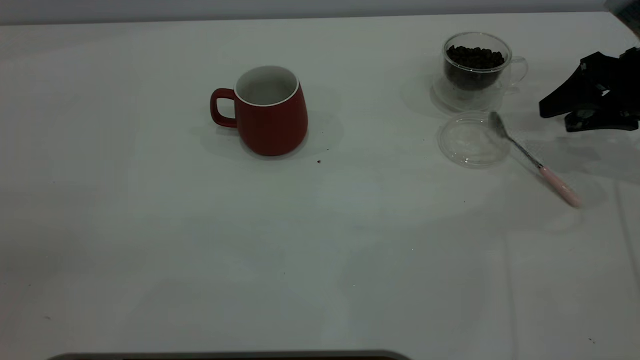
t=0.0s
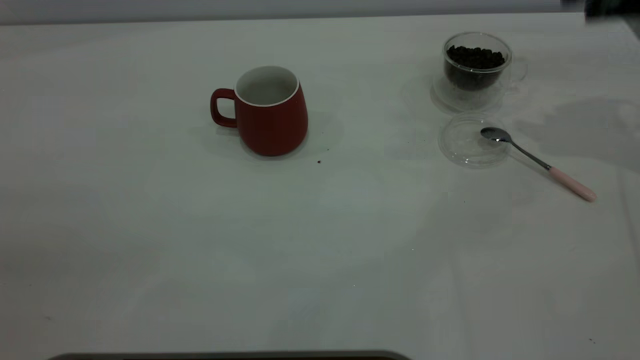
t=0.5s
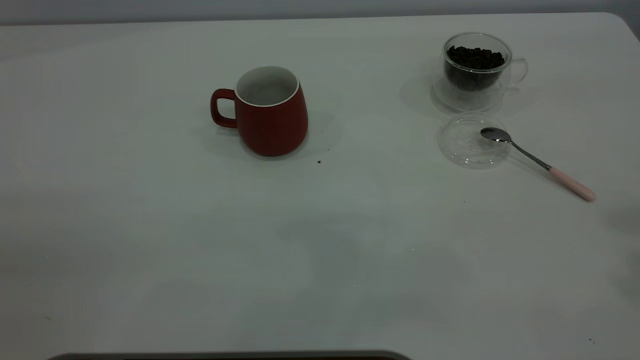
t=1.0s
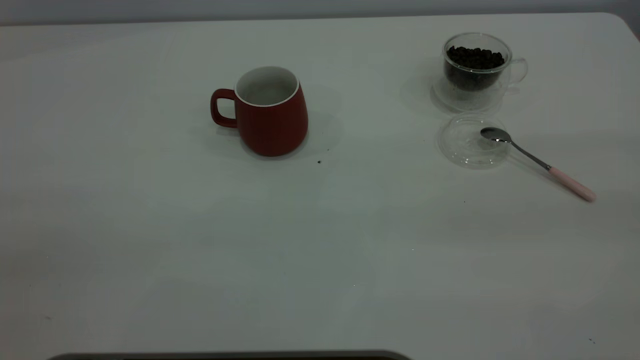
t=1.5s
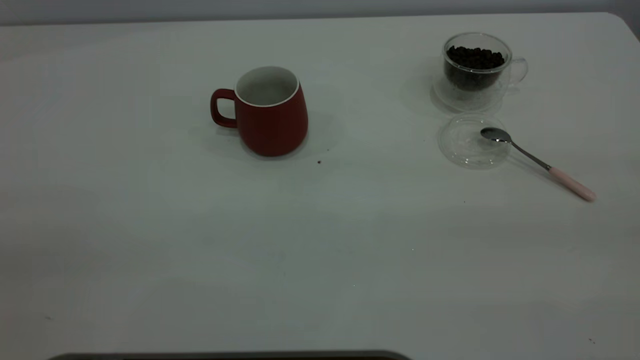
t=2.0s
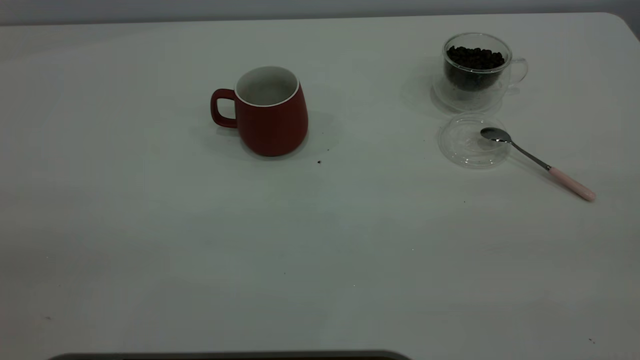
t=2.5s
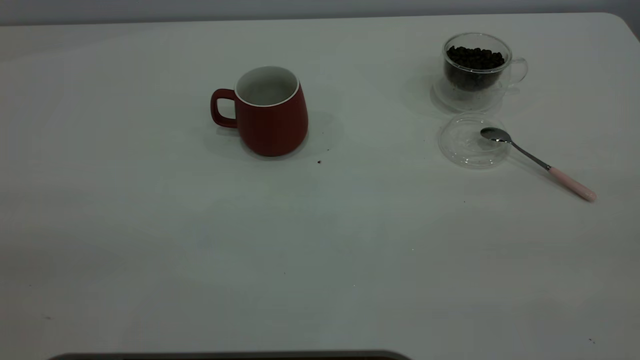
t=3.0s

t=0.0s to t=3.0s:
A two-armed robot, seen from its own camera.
Task of the whole recording: the left gripper place the red cup in the center of the table, the right gripper take the pink spoon from the cup lid and scoop out the coffee beans from the coffee cup and put them into the red cup, the right gripper put the spoon back into the cup lid.
t=0.0s to t=1.5s: The right gripper goes some 40 cm backward and upward.

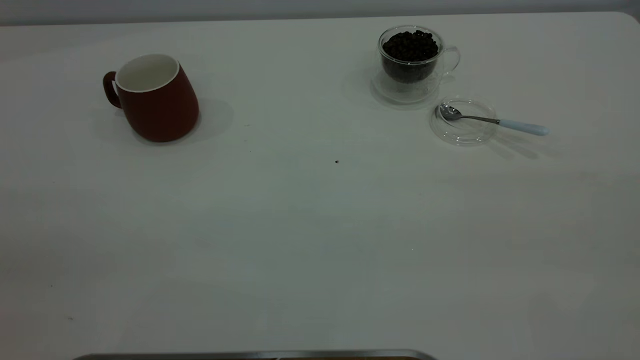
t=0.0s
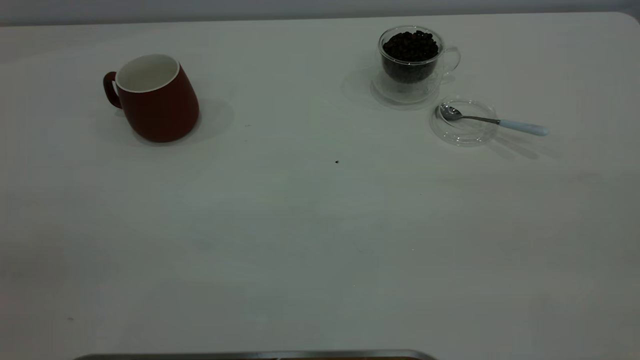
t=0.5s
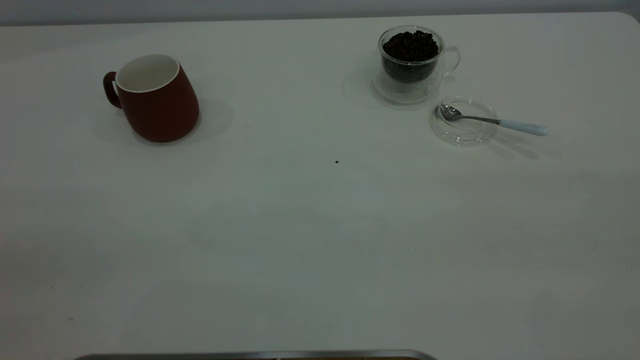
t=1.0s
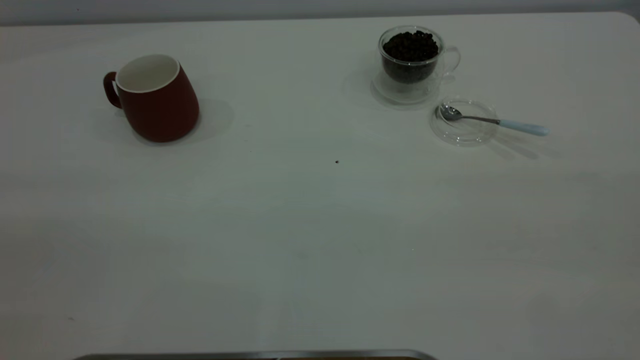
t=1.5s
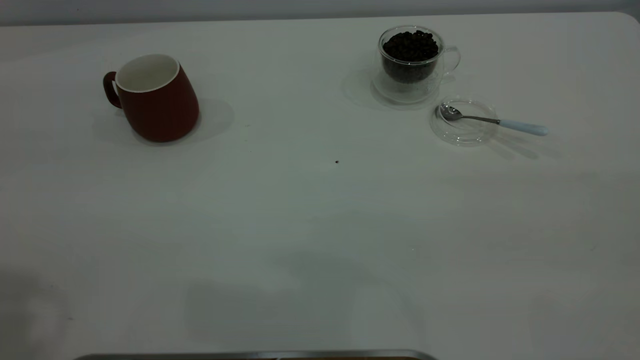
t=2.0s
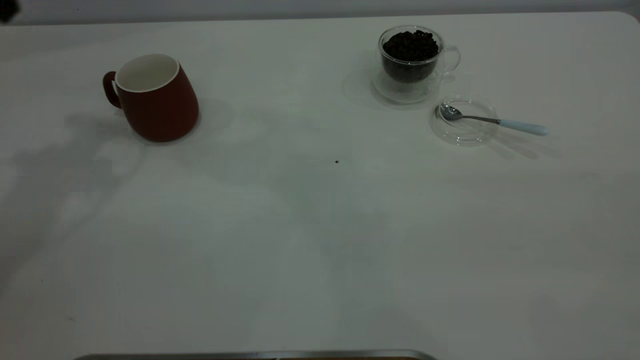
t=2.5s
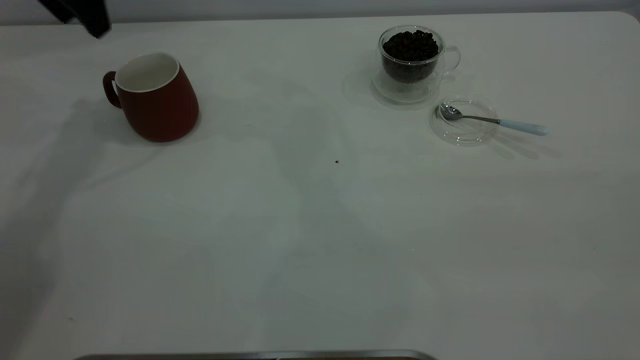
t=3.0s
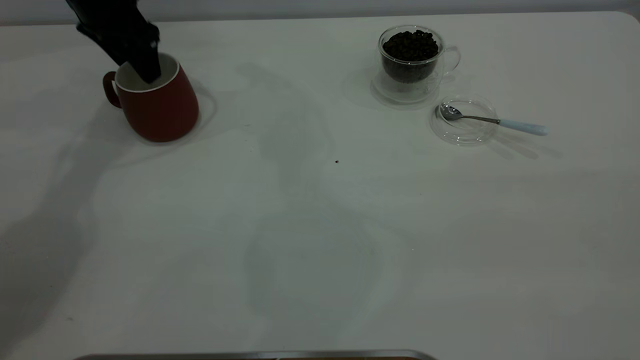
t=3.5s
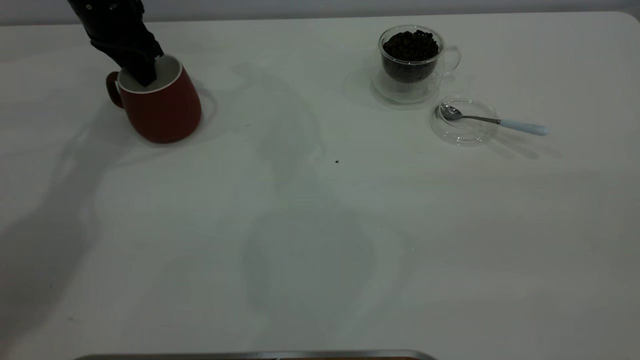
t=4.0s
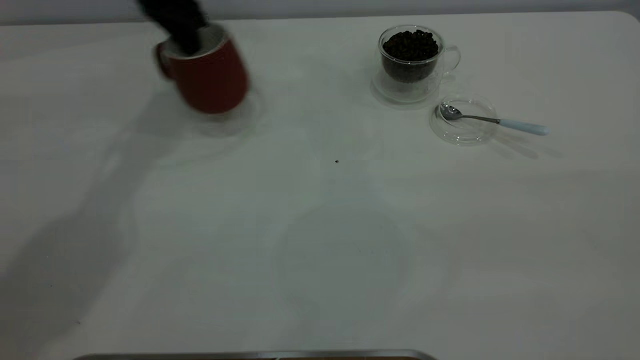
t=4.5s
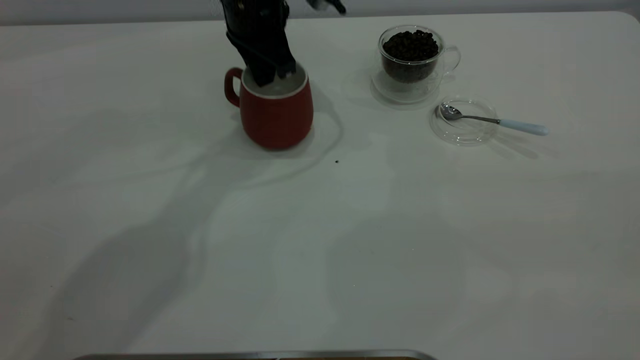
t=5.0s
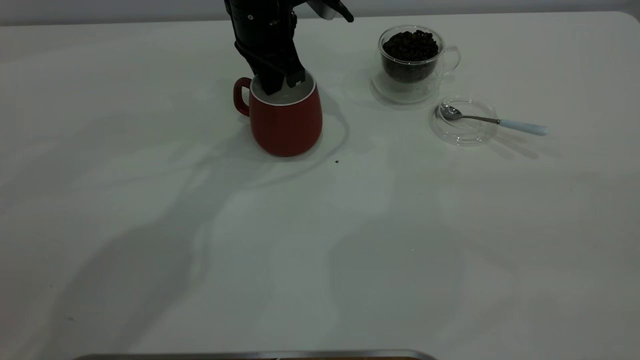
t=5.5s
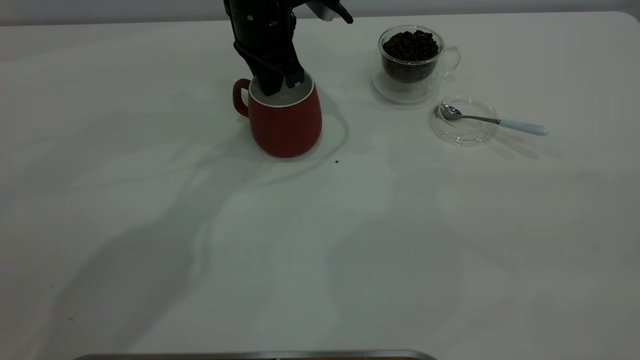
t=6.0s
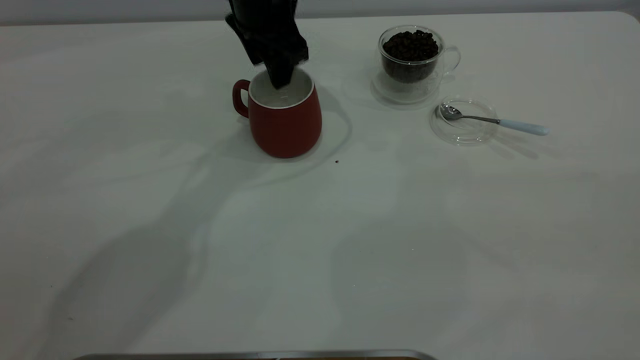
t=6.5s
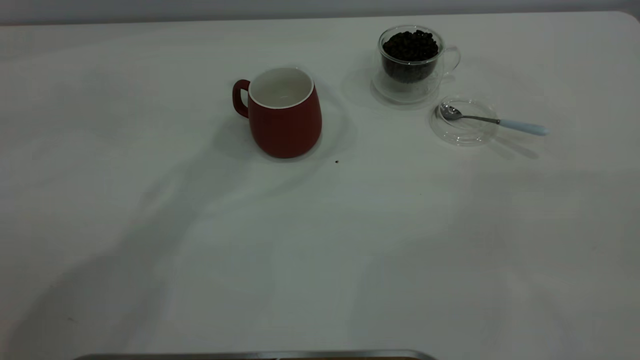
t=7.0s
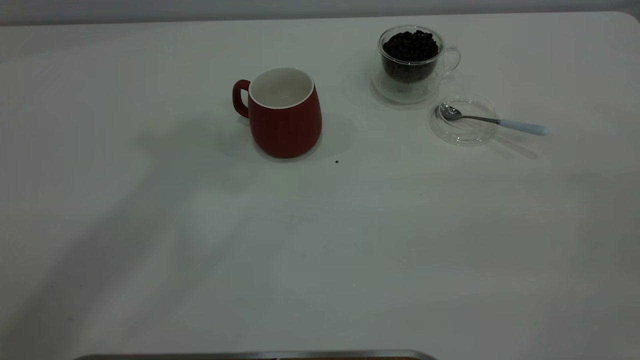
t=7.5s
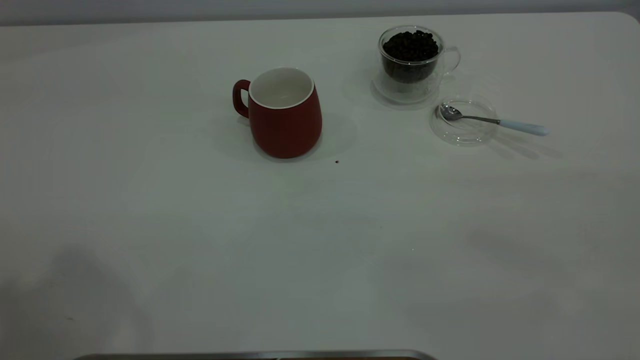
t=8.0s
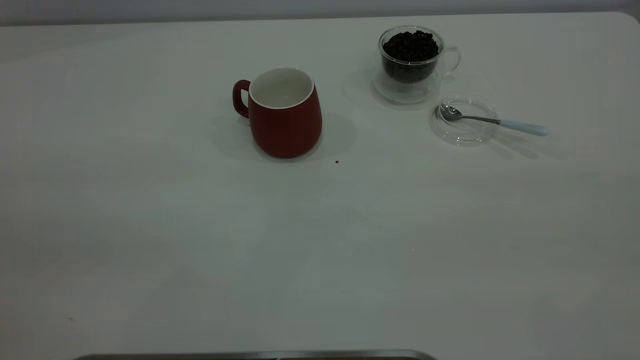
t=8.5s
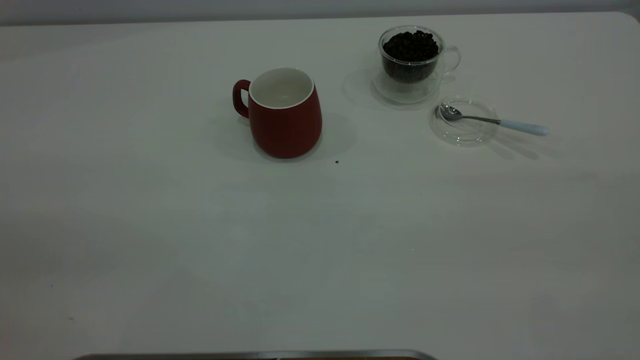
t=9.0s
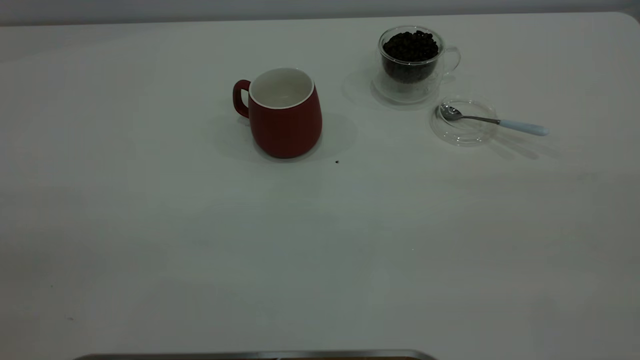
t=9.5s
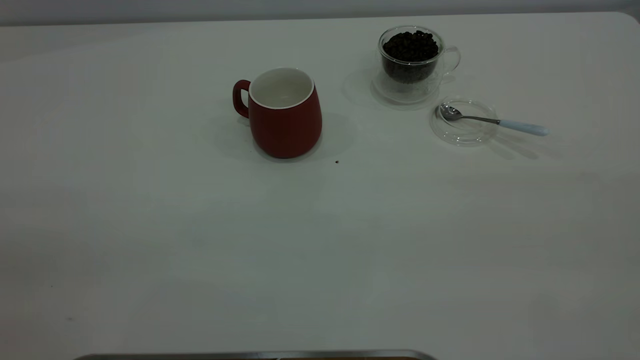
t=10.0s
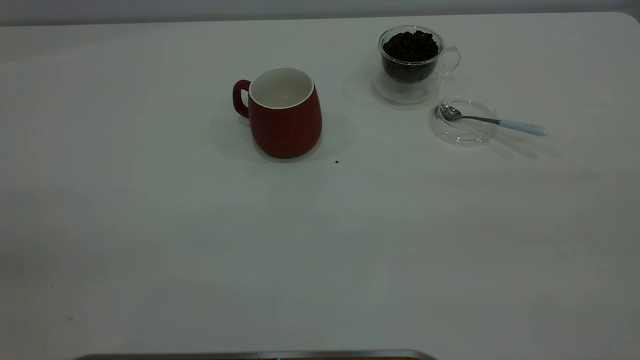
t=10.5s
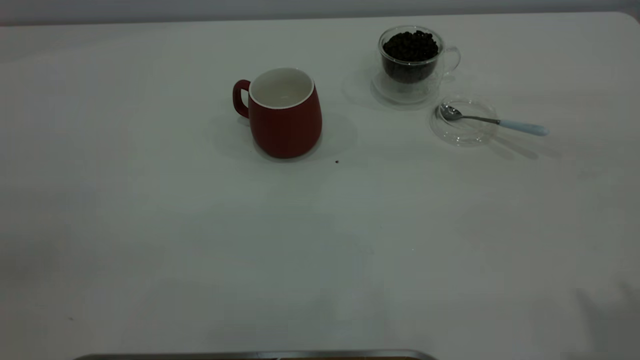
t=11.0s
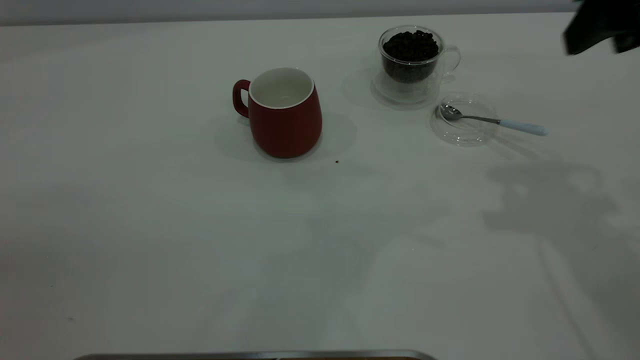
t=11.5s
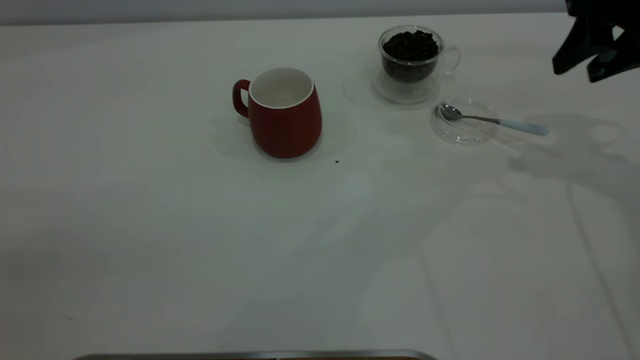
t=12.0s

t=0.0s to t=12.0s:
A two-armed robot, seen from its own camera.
Task of the whole recording: the left gripper place the red cup in the center of the table, the right gripper take the blue spoon from the cup lid and scoop out the coffee beans from the coffee cup and put them into the red cup, the right gripper put the spoon back into the cup lid.
Step, t=0.0s to t=6.5s: Move the cup to the center of view.
t=2.0s to t=4.0s: The left gripper moves forward and downward, roughly 40 cm, and closes up.
t=4.0s to t=6.0s: The left gripper travels to the right by approximately 20 cm.
t=6.0s to t=8.0s: The left gripper is displaced upward, backward and to the left by approximately 50 cm, and opens its fingers.
t=10.0s to t=12.0s: The right gripper is displaced forward and downward by some 40 cm, and opens its fingers.

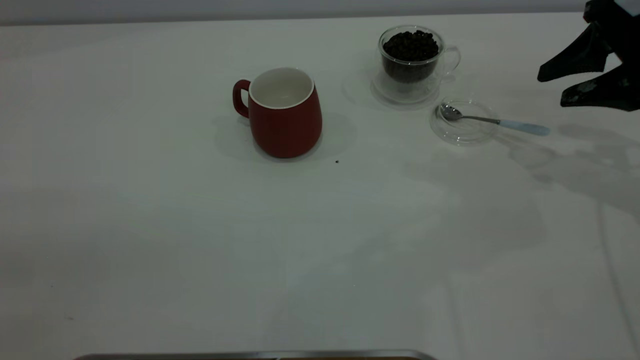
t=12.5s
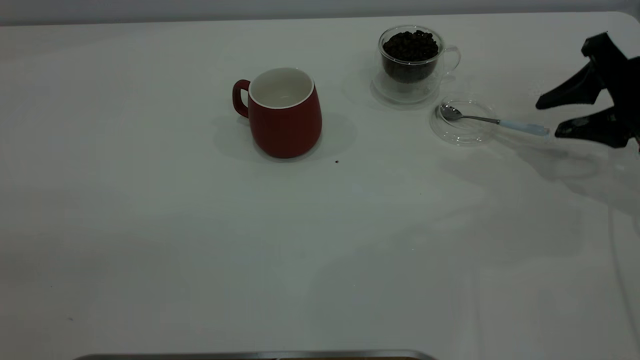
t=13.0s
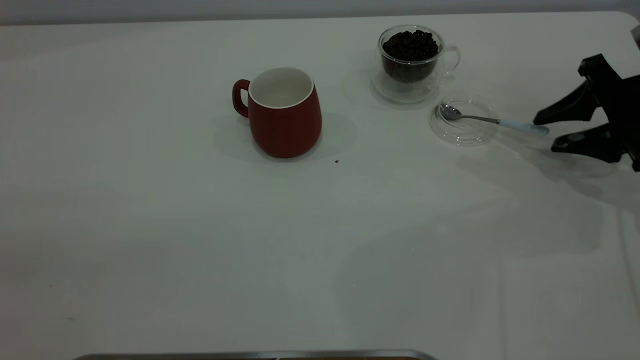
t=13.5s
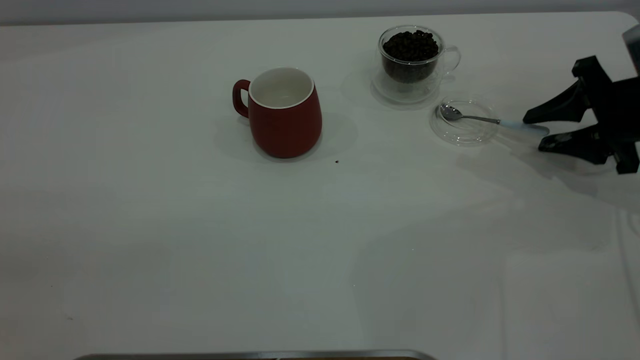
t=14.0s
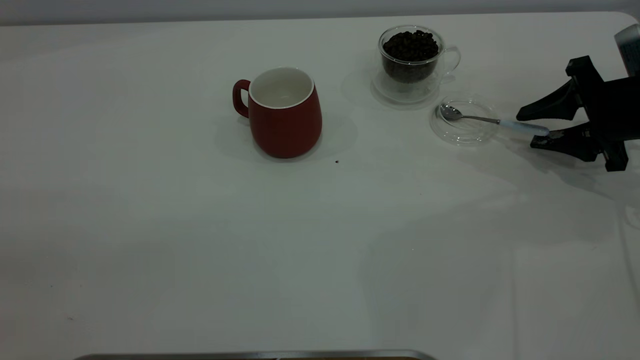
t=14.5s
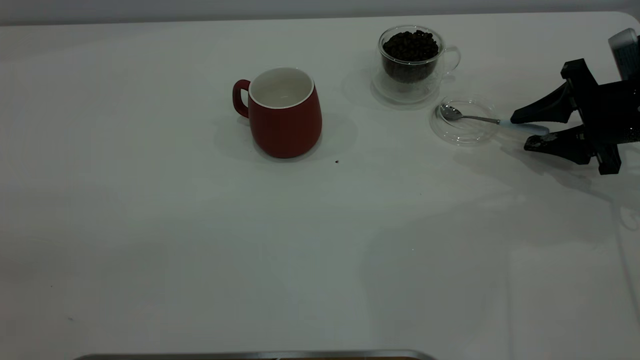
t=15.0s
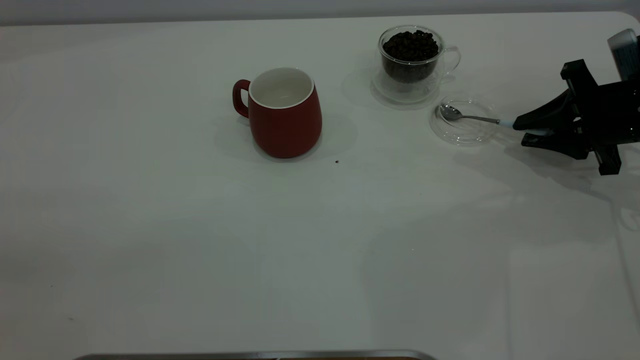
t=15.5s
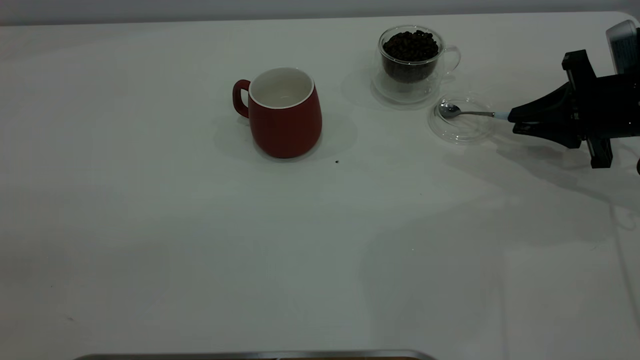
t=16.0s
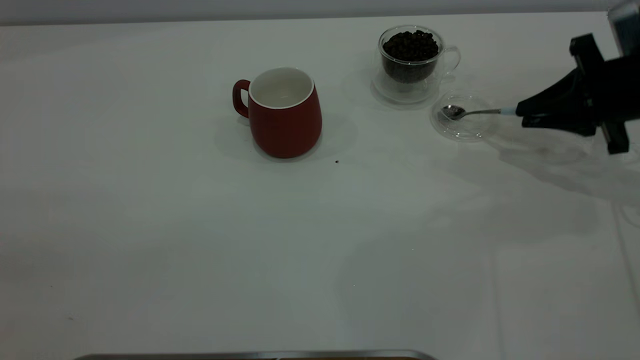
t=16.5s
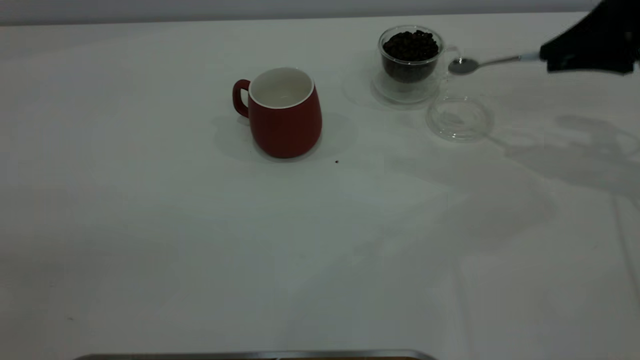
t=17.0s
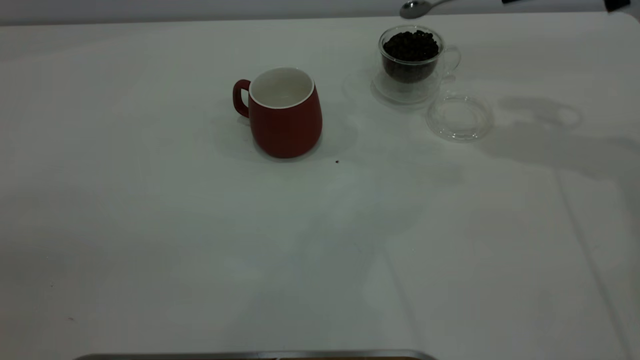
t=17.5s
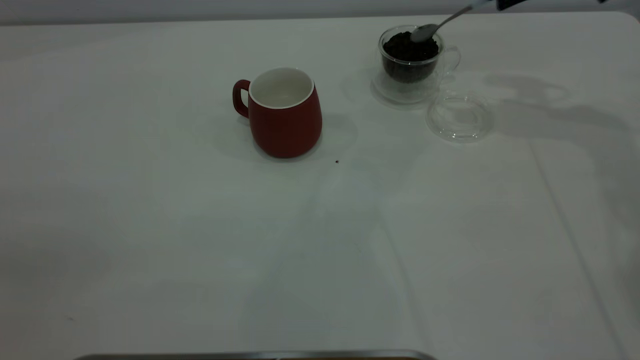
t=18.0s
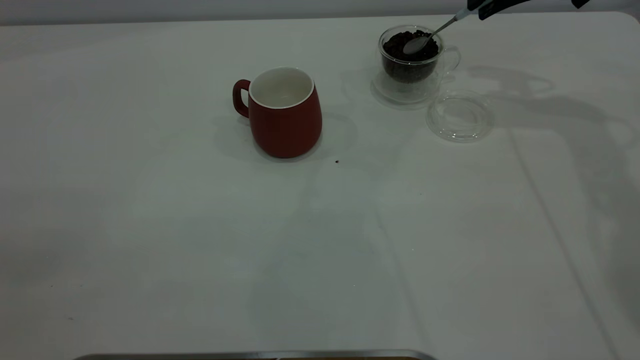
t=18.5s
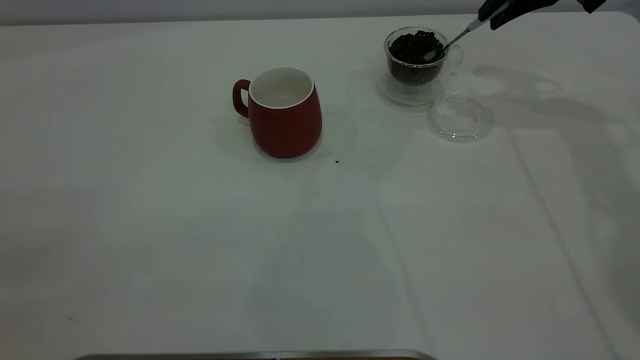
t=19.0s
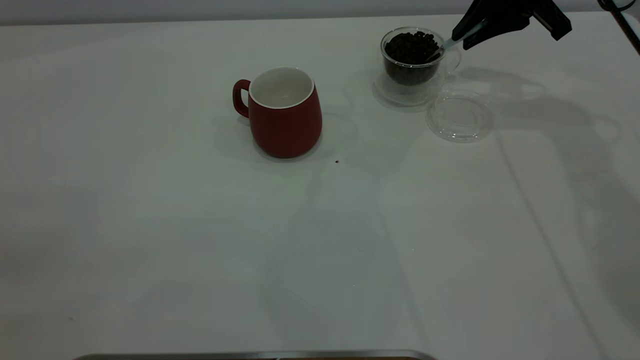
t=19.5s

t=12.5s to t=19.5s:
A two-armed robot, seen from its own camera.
Task of the whole recording: the left gripper place the red cup in the center of the table, the right gripper take the blue spoon from the cup lid and scoop out the coffee beans from the coffee cup and put them into the red cup, the right gripper put the spoon back into the cup lid.
Step, t=12.5s to t=16.5s: Pick up the spoon.
t=12.5s to t=14.5s: The right gripper heads downward, covering approximately 10 cm.
t=14.5s to t=16.0s: The right gripper closes its fingers.
t=16.0s to t=17.5s: The right gripper travels upward by about 20 cm.
t=17.5s to t=19.5s: The right gripper moves forward and downward, approximately 10 cm.
